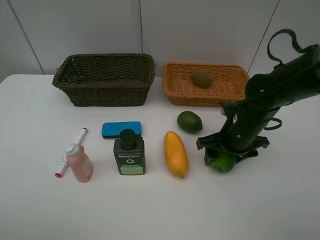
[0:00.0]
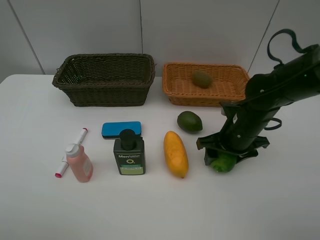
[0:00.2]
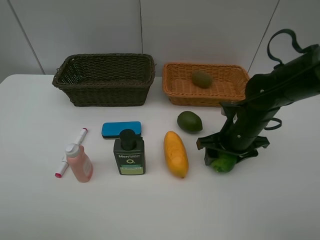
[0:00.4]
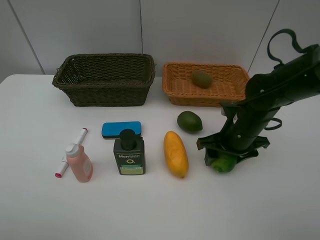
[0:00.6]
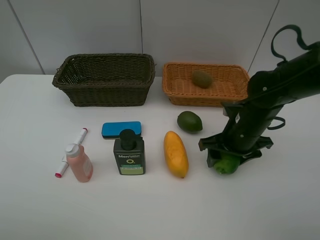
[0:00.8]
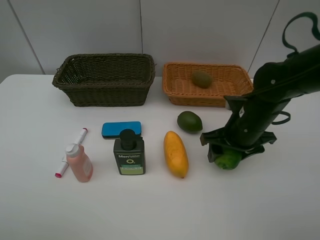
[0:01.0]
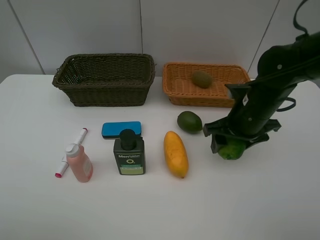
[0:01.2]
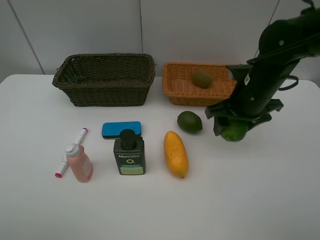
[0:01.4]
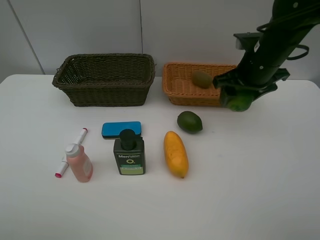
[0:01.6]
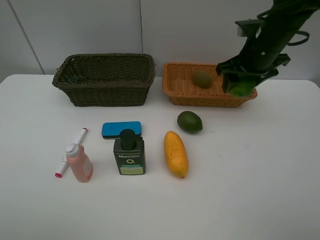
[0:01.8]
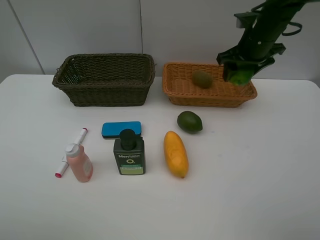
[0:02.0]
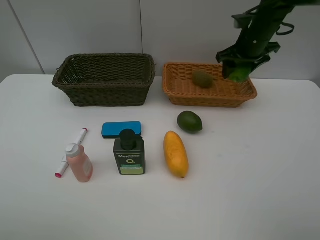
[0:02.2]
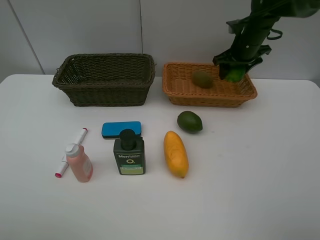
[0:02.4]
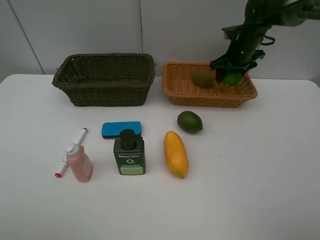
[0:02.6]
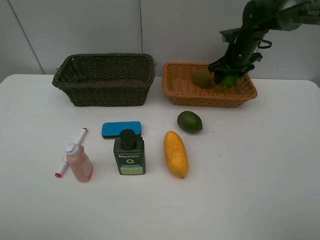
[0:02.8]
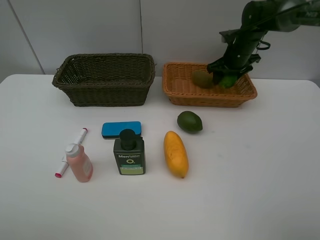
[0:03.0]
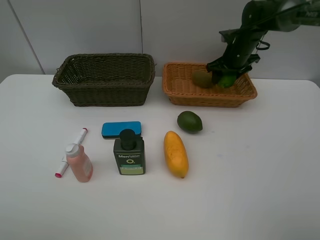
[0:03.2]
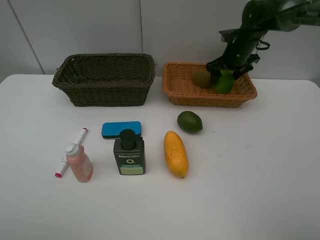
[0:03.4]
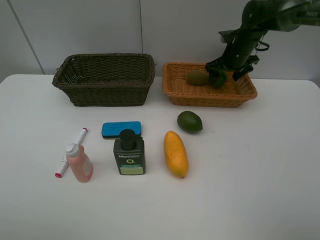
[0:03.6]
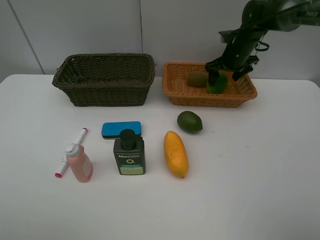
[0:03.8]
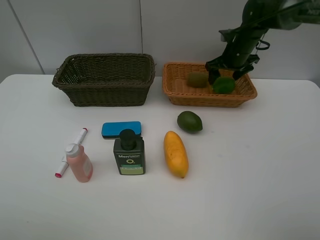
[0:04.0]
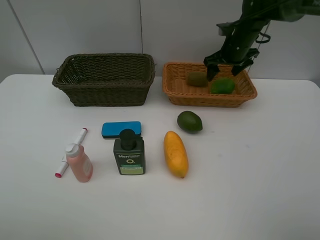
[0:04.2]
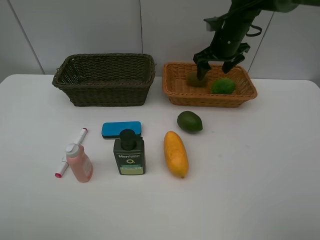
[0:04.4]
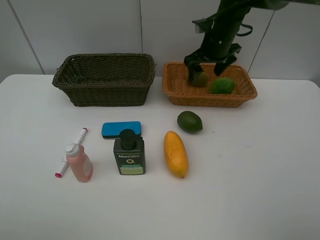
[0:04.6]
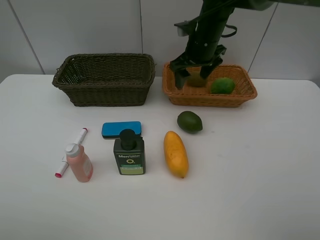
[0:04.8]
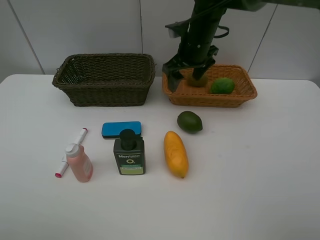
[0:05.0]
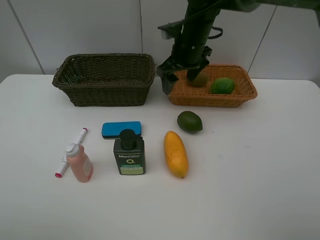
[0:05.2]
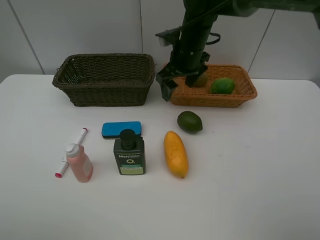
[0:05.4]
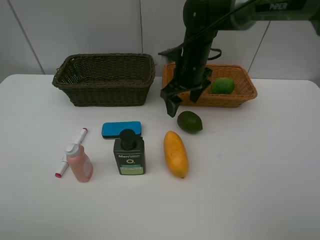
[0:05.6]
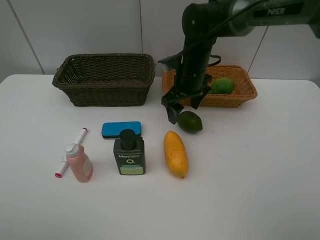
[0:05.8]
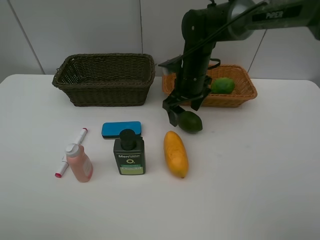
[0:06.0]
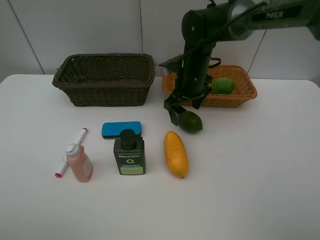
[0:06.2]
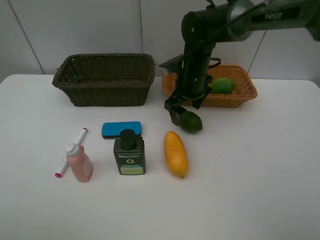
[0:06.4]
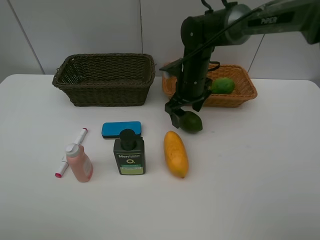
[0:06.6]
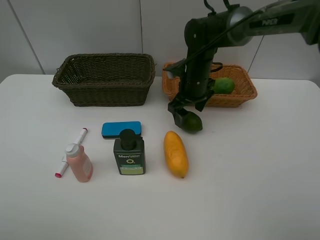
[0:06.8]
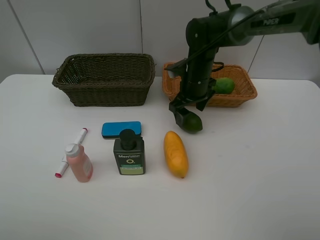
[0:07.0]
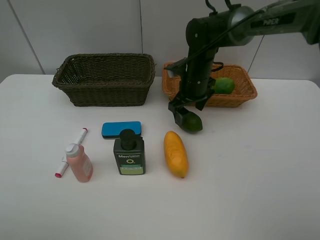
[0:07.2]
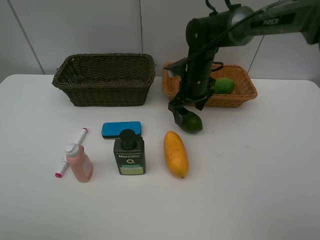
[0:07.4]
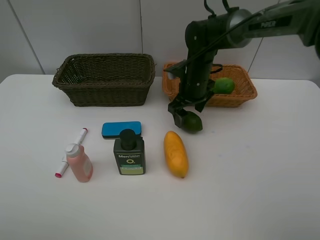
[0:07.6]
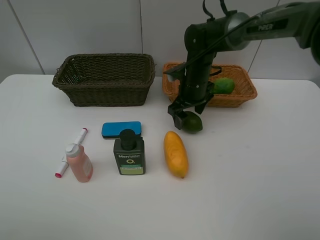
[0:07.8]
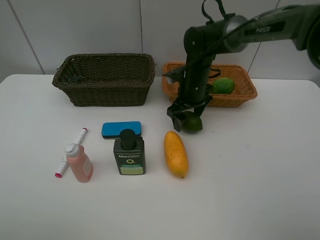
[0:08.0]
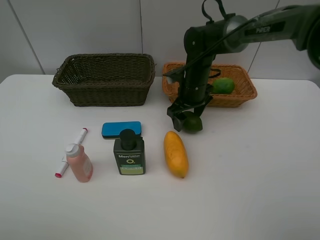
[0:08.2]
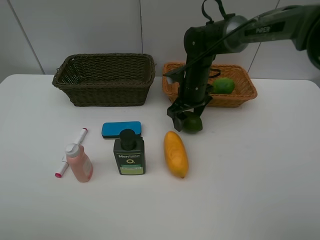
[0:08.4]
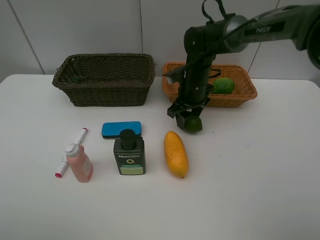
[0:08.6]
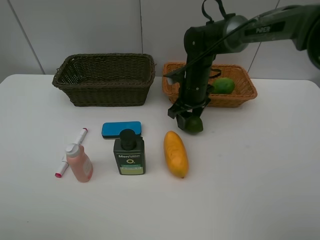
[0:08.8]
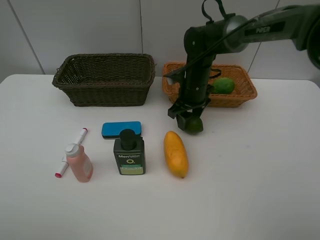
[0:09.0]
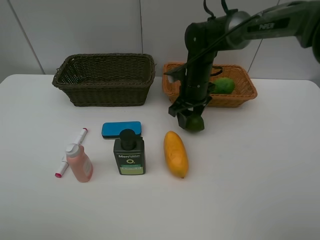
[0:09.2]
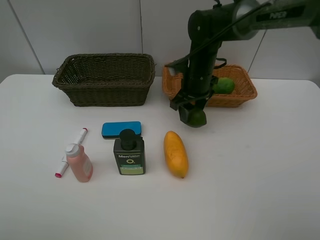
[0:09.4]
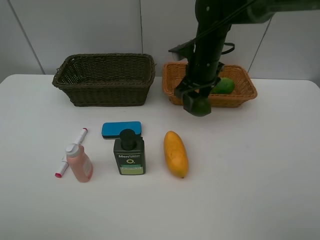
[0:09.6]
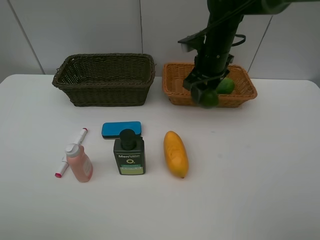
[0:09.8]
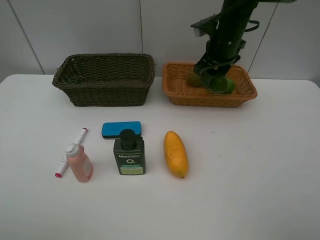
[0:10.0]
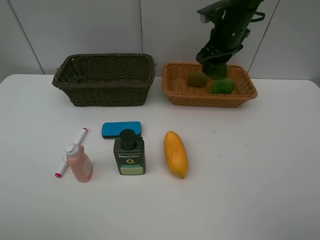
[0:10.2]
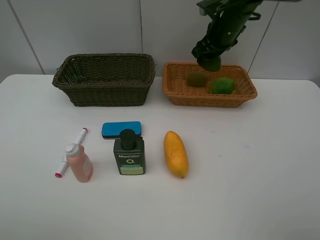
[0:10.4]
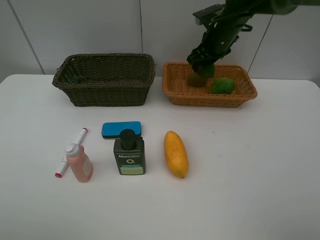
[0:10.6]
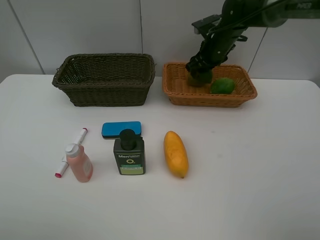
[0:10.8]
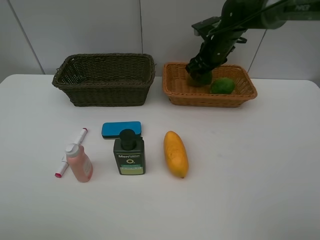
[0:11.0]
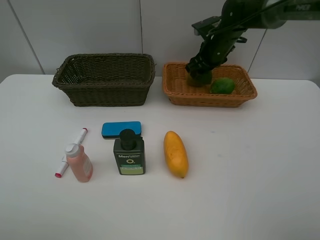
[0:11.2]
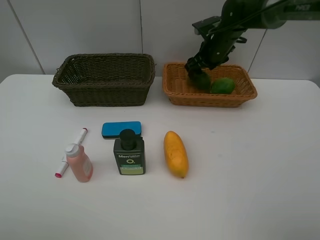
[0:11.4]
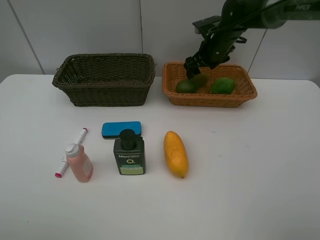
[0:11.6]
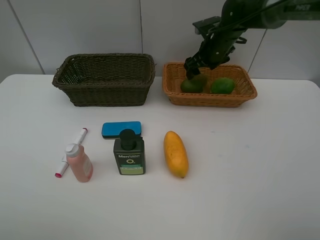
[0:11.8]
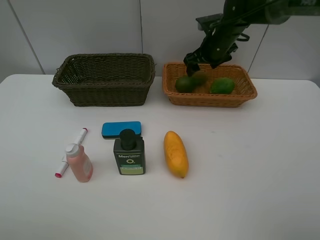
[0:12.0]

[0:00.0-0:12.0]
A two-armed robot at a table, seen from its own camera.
Task of the whole recording: Place multiple objects separately in different baskets.
Step, 0:01.4 to 0:03.8: Place the lime in the light basket with right gripper.
Step, 0:04.0 to 0:09.4: Pick up the lime with right gripper.
0:00.0 to 0:01.6: The right gripper heads upward and forward, covering roughly 15 cm.
0:01.6 to 0:03.0: The right gripper moves forward, roughly 15 cm.
0:03.0 to 0:04.4: The right gripper moves to the left, roughly 5 cm, and opens its fingers.
0:04.4 to 0:06.0: The right gripper moves to the left, backward and downward, roughly 15 cm.
0:06.0 to 0:07.6: There are only small adjustments of the grippers.
0:07.6 to 0:09.0: The right gripper closes up.
0:09.0 to 0:10.4: The right gripper goes roughly 15 cm upward, to the right and forward.
0:10.4 to 0:12.0: The right gripper changes place by roughly 5 cm, and opens its fingers.

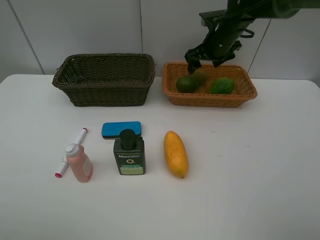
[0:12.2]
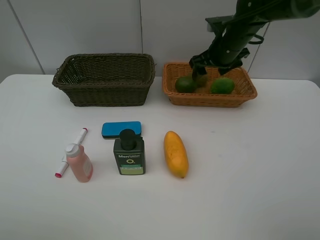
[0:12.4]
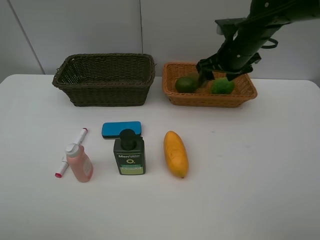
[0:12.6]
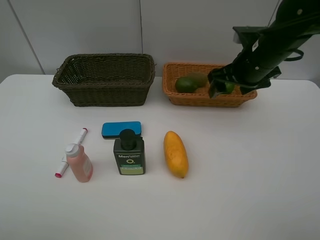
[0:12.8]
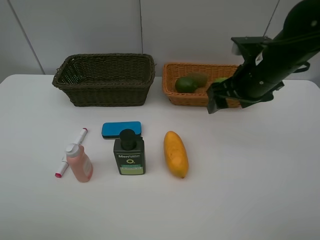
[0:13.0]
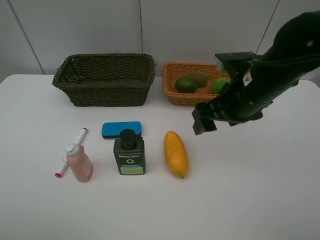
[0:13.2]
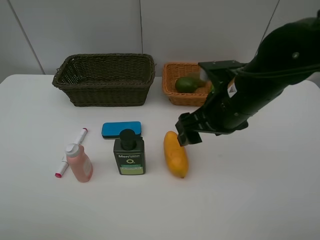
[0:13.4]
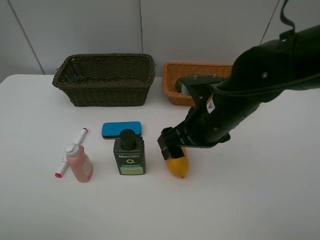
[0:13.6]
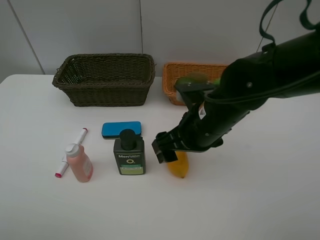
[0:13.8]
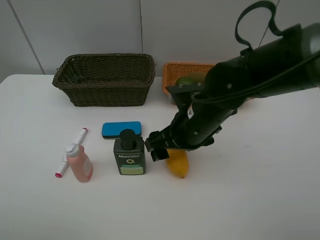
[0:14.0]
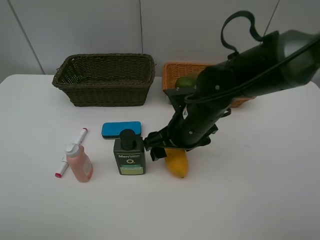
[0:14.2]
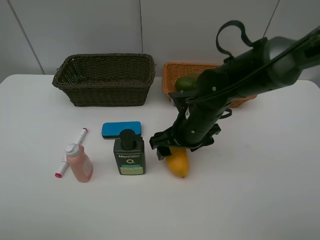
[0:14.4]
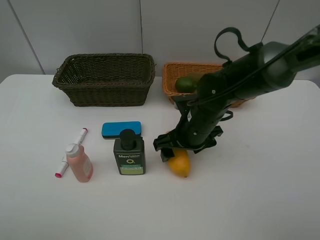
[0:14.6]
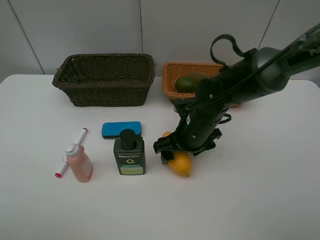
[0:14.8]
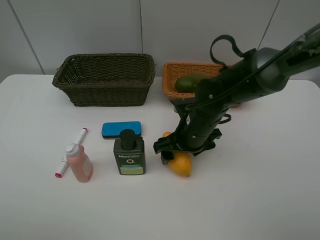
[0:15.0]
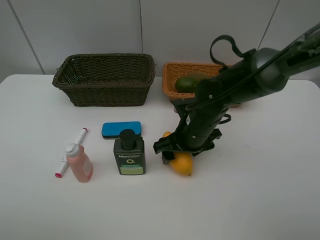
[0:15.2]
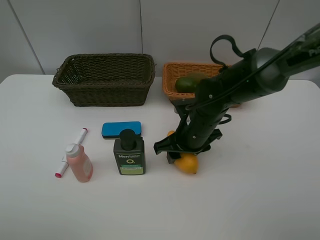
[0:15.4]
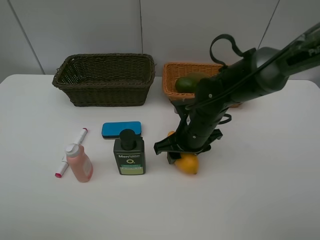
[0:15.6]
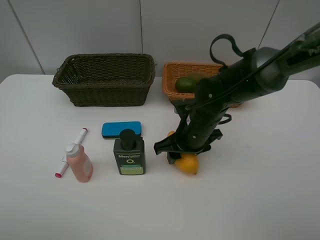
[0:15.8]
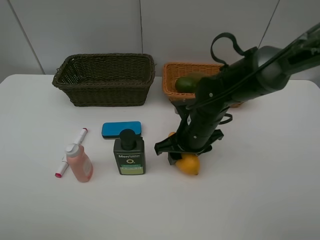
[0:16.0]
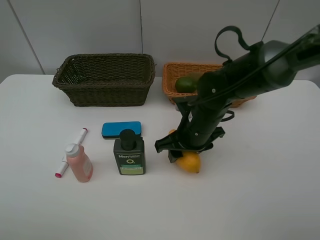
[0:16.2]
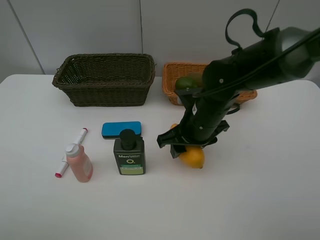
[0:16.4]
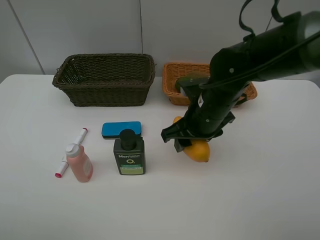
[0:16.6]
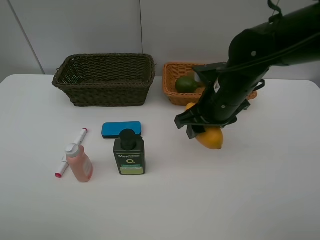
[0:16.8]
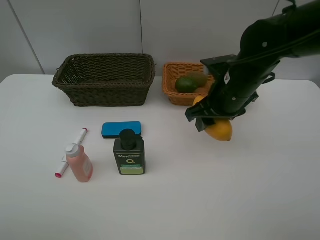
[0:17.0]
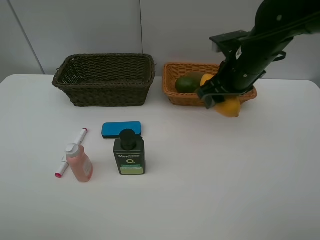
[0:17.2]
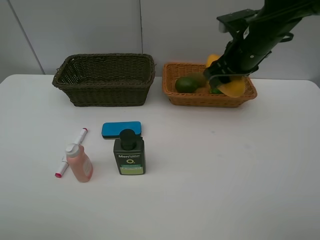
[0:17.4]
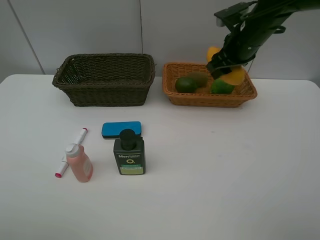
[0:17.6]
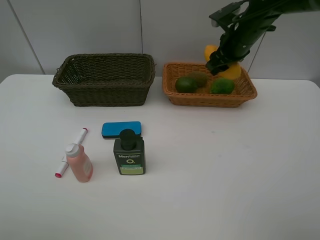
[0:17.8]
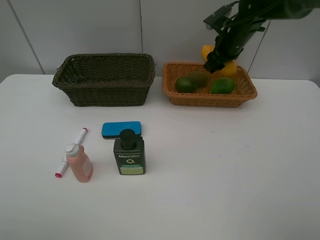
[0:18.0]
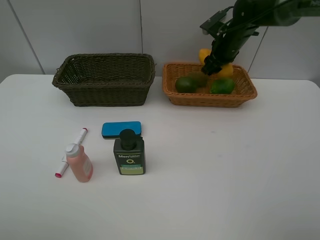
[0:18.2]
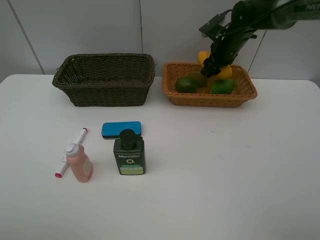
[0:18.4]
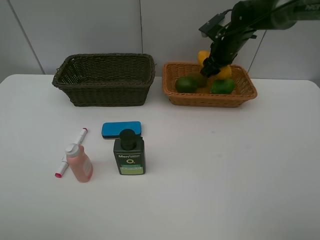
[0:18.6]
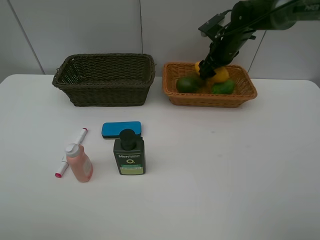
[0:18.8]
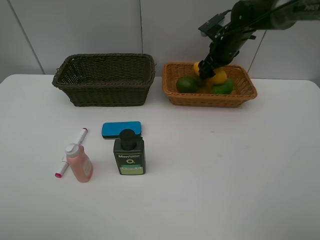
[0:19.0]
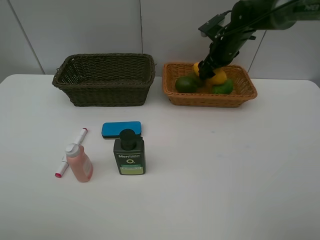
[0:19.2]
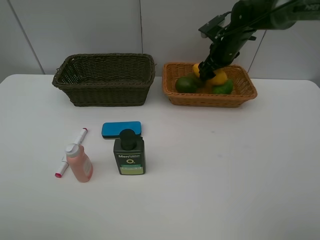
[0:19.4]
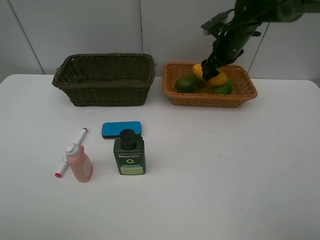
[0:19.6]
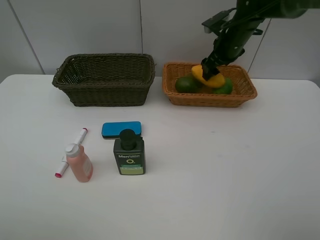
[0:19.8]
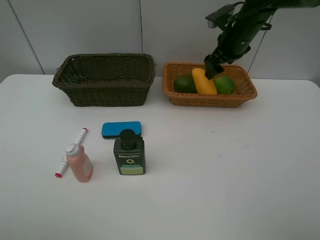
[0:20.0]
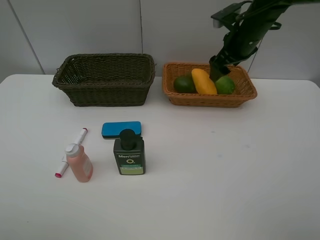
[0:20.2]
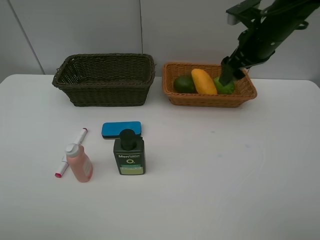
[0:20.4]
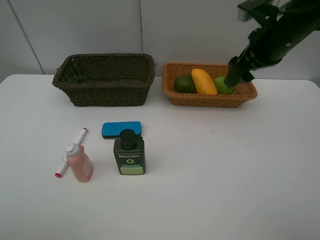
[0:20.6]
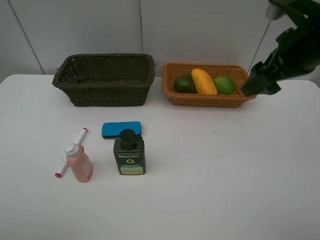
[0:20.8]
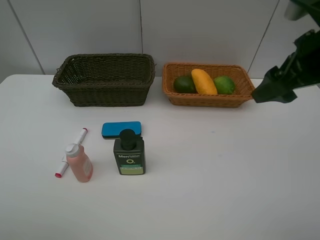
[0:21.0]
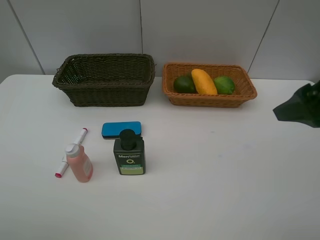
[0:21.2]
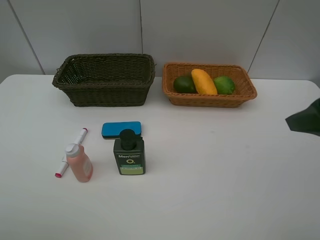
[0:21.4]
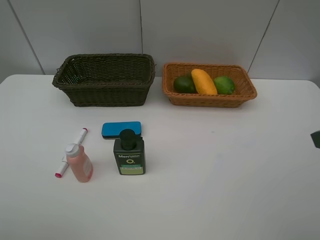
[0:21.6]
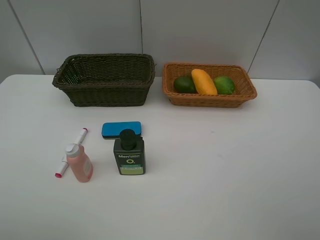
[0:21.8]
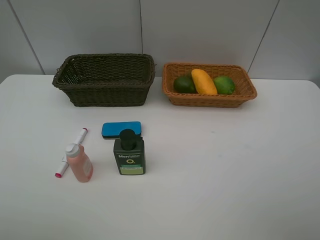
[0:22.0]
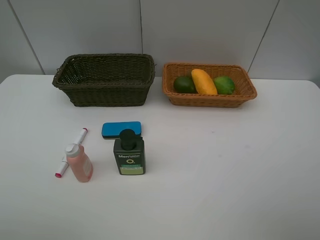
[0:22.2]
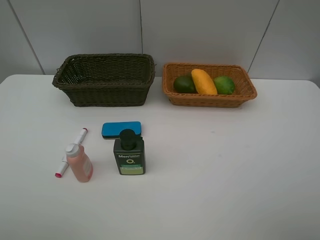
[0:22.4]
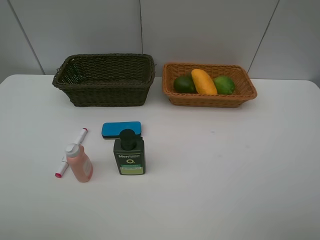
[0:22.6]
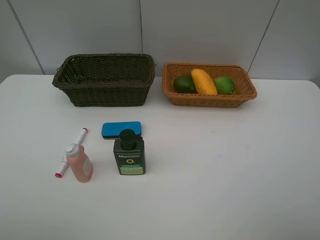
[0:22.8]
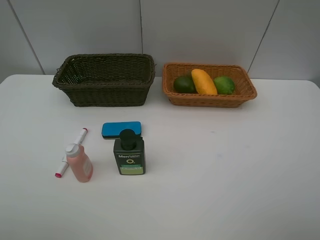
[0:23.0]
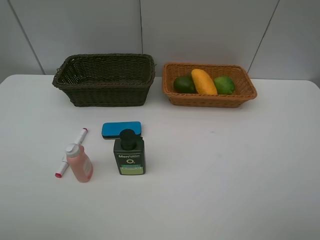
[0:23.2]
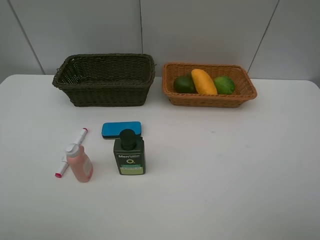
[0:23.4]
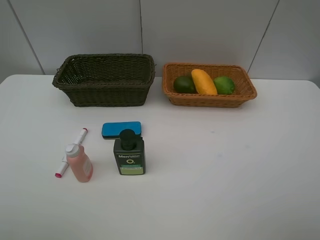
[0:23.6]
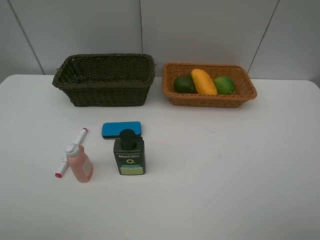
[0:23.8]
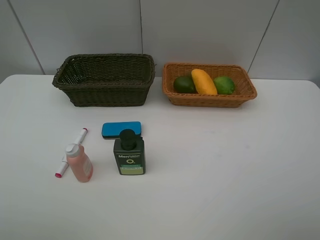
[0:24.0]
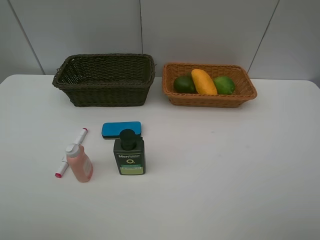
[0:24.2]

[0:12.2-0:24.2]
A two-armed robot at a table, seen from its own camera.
Task of the whole recording: Place multiple objects separately in different baskets.
Step, 0:12.4 to 0:16.4: Pick up the mango with right gripper.
Step, 0:16.6 to 0:20.0: Place the mango in the light basket with right gripper.
0:12.2 to 0:13.8: The right gripper goes roughly 25 cm backward.
0:13.8 to 0:15.2: The right gripper is displaced downward and forward by some 10 cm.
0:15.2 to 0:16.6: The right gripper moves upward, roughly 5 cm, and closes its fingers.
0:16.6 to 0:18.2: The right gripper heads forward and to the right, covering about 25 cm.
0:18.2 to 0:19.8: The right gripper opens its fingers.
0:19.8 to 0:21.2: The right gripper moves backward, about 30 cm.
0:21.2 to 0:22.6: The right gripper goes some 15 cm backward.
